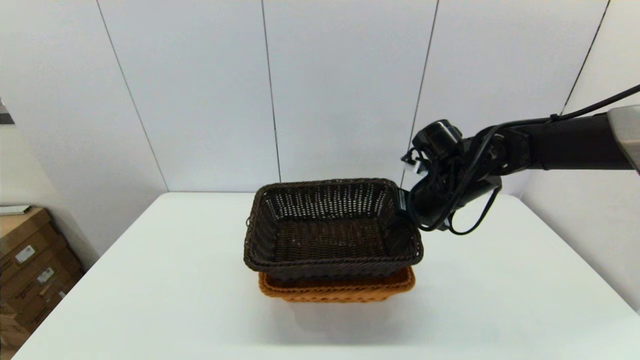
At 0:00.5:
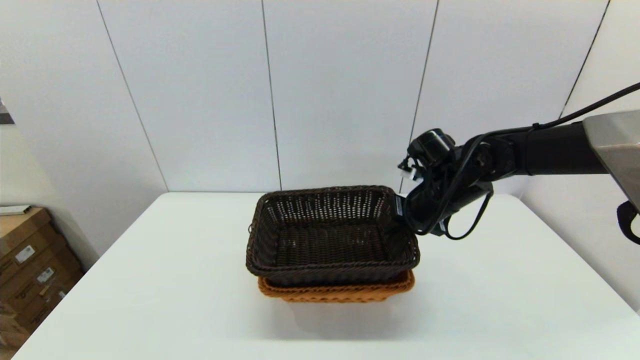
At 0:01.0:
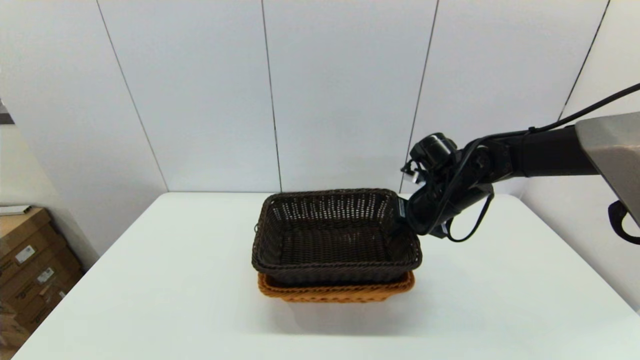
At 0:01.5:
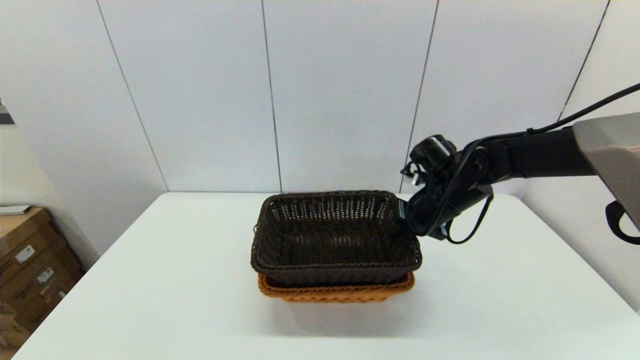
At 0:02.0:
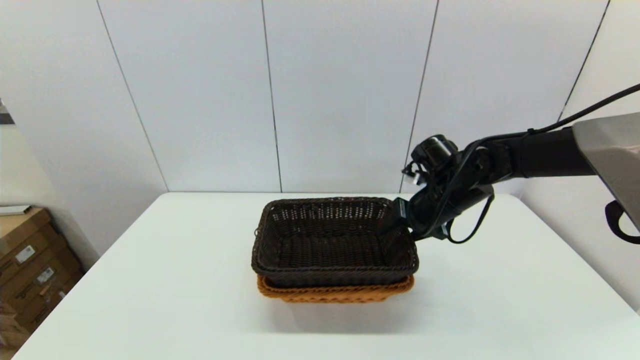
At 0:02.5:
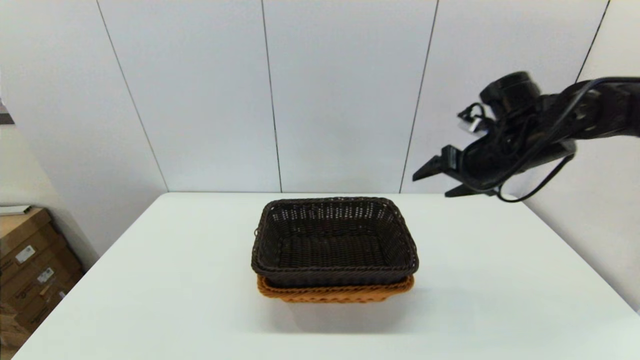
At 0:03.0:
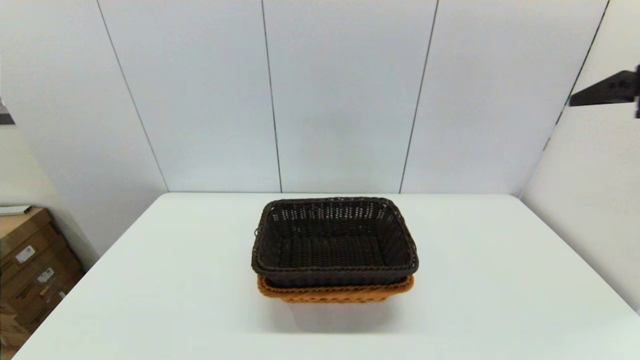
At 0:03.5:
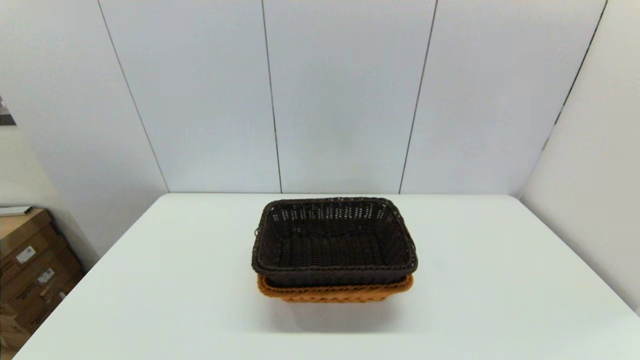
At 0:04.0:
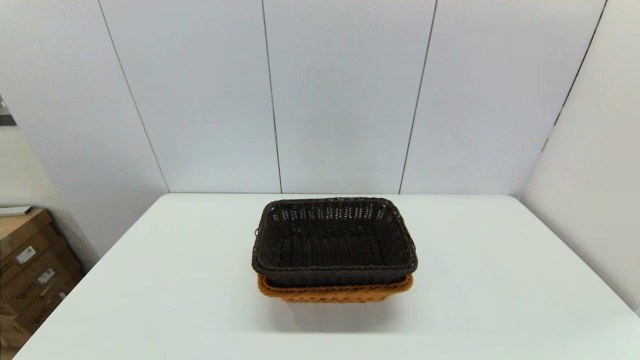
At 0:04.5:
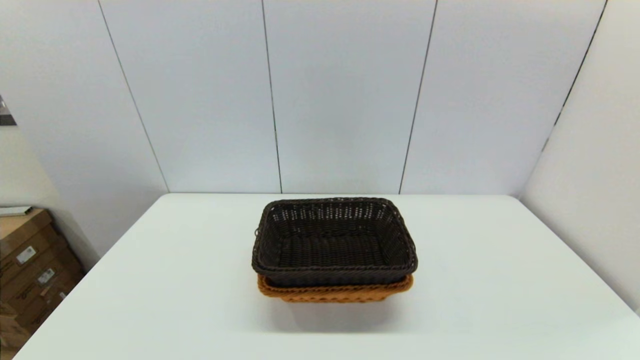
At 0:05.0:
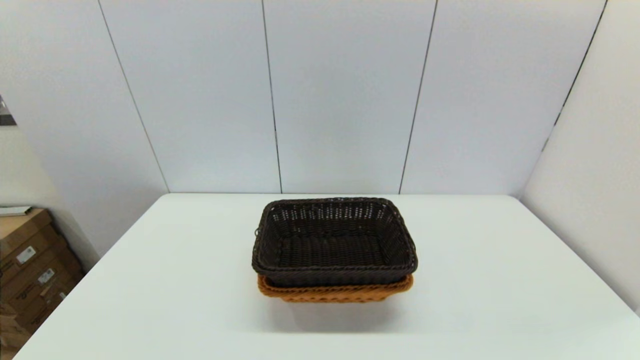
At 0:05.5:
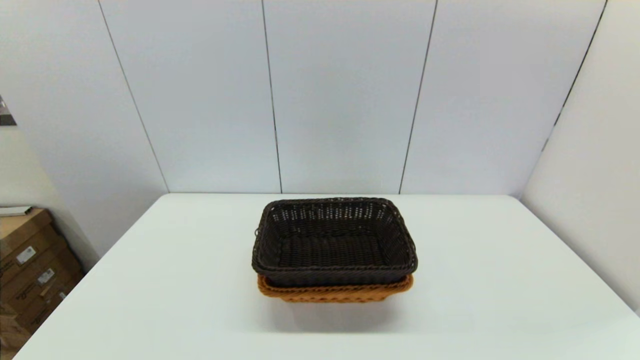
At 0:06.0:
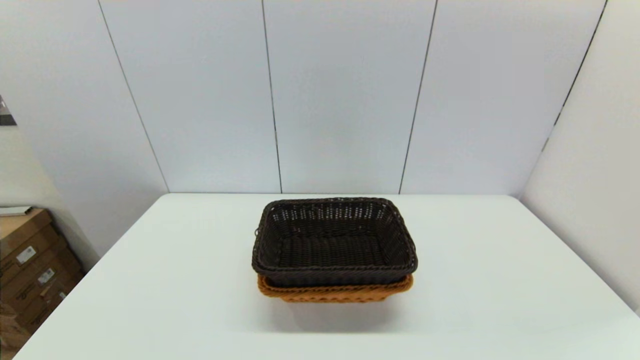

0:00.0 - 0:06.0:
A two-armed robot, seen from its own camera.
Task of the whole recording: stack a basket on top of another basket.
Step, 0:00.0 - 0:02.0: Place the dark basket into the light color basket with the right gripper.
0:00.0 - 0:02.0: The right gripper opens up.
0:02.0 - 0:04.0: The right gripper goes about 50 cm backward, and opens its fingers.
